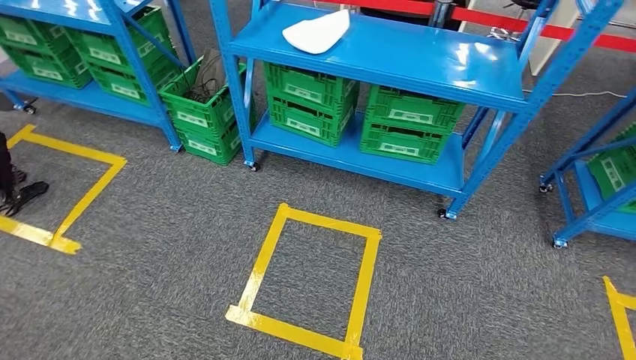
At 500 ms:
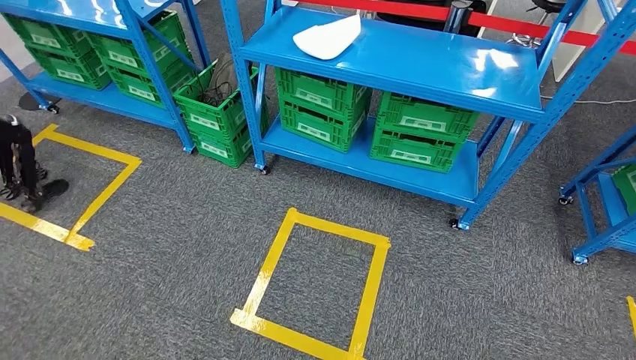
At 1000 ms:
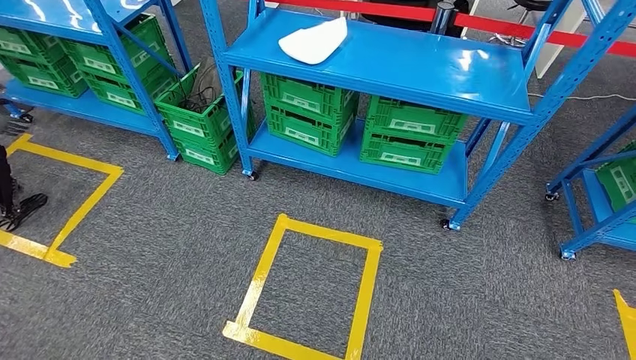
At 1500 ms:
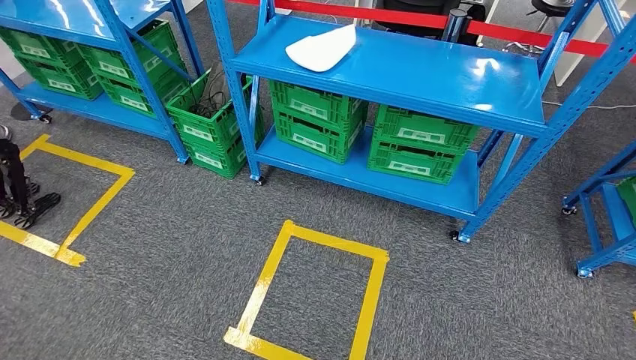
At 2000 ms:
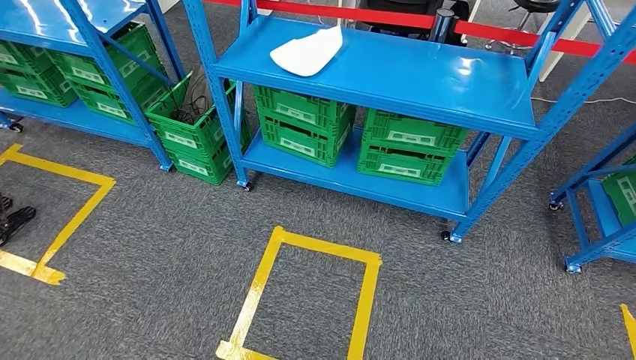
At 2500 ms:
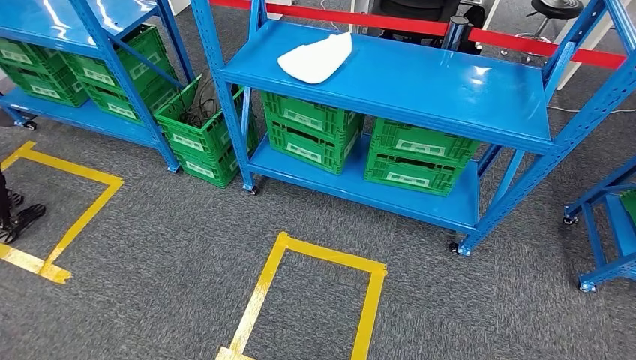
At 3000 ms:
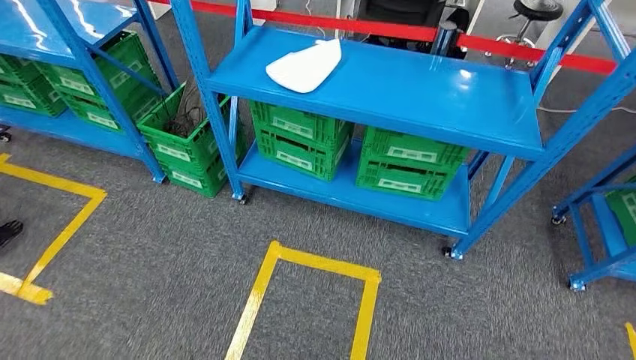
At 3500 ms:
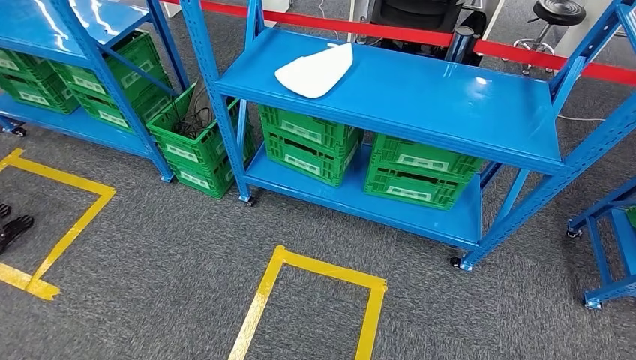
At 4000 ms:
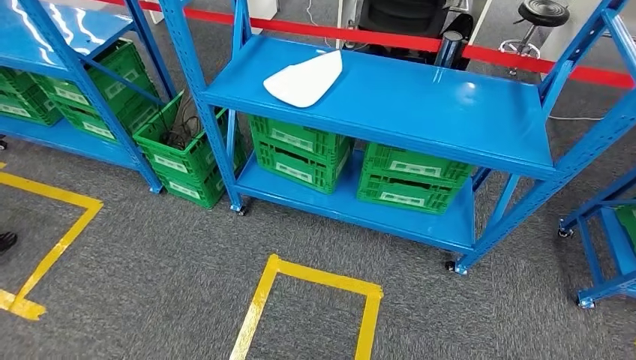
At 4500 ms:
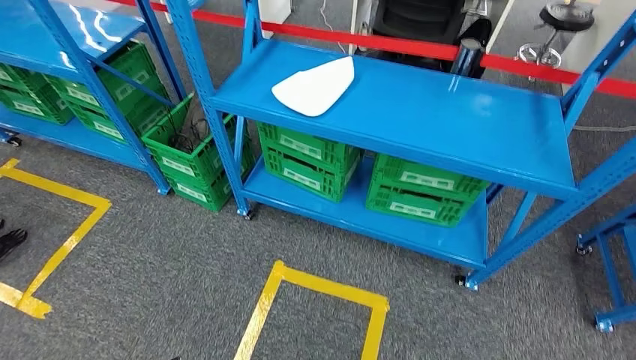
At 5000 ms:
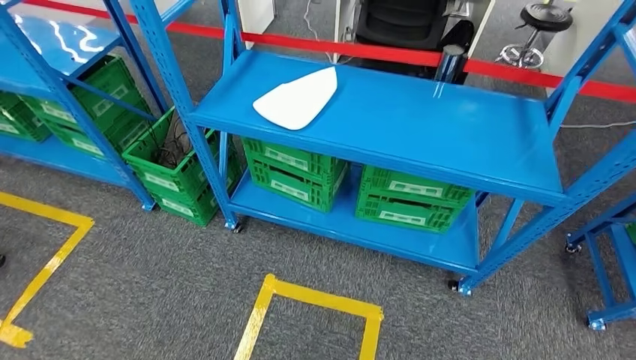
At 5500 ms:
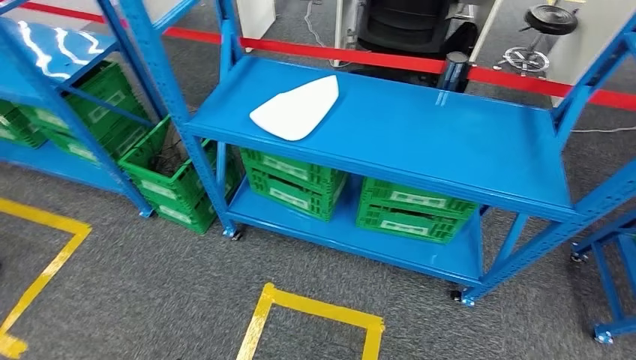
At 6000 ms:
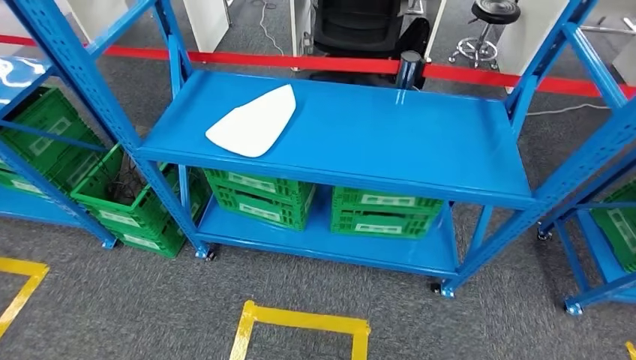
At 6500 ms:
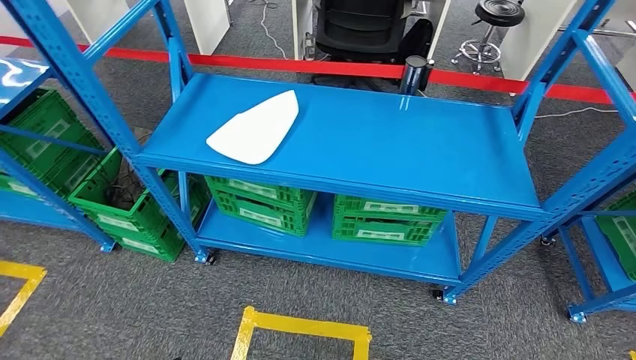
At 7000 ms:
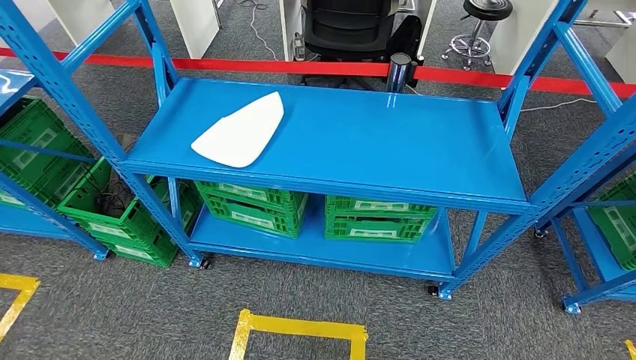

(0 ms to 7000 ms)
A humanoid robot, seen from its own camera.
Step, 0 ms - 7000 ms: Move to the initial position of the workbench.
